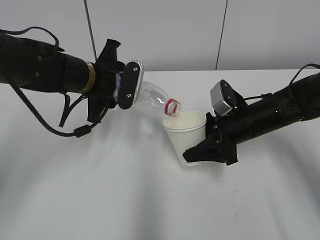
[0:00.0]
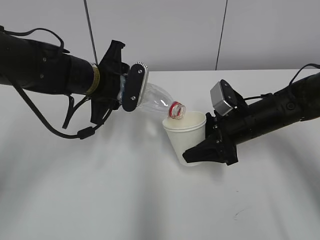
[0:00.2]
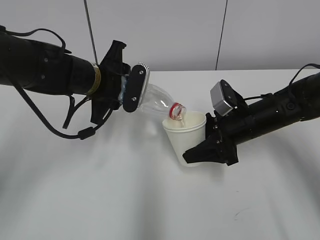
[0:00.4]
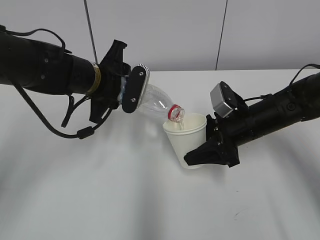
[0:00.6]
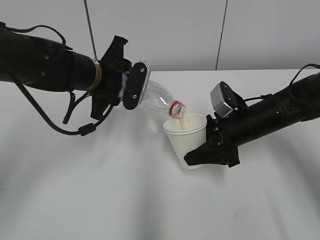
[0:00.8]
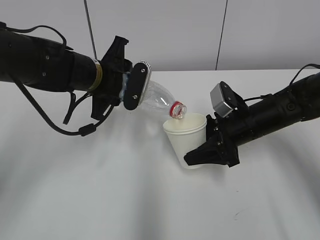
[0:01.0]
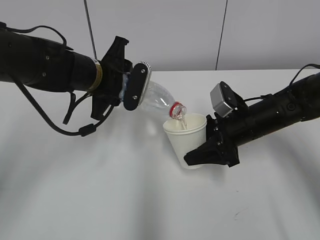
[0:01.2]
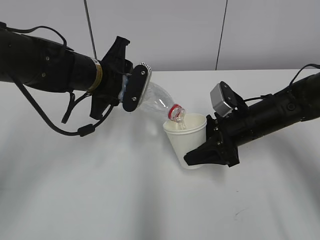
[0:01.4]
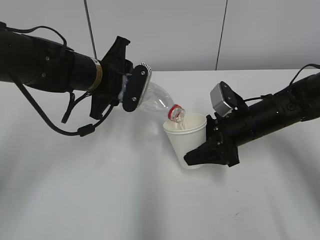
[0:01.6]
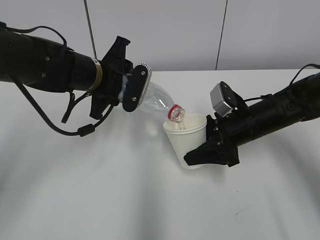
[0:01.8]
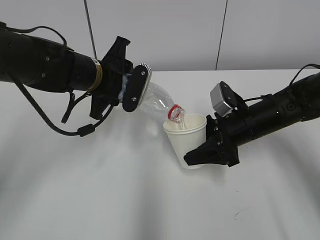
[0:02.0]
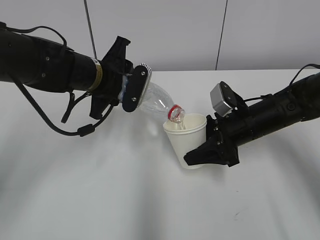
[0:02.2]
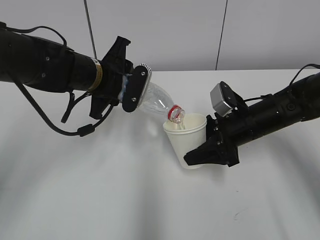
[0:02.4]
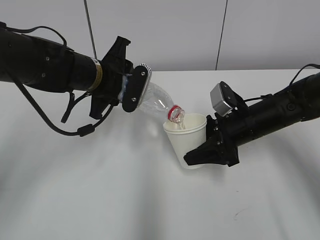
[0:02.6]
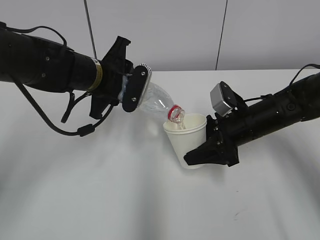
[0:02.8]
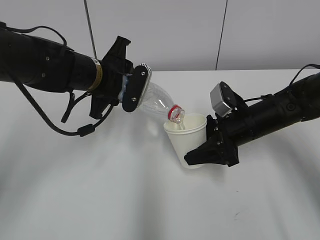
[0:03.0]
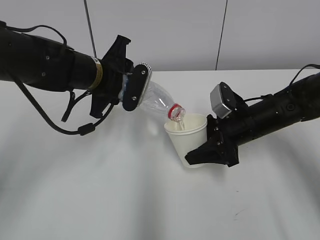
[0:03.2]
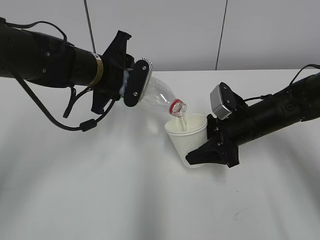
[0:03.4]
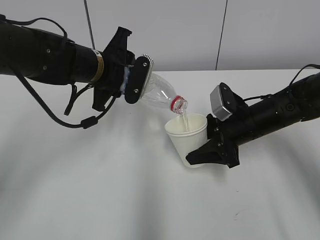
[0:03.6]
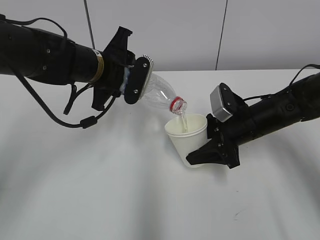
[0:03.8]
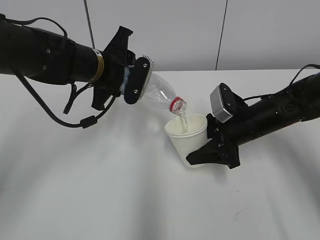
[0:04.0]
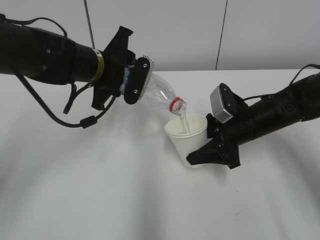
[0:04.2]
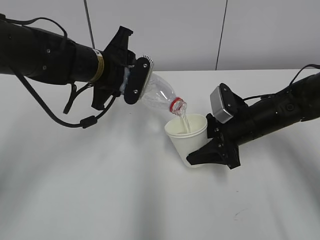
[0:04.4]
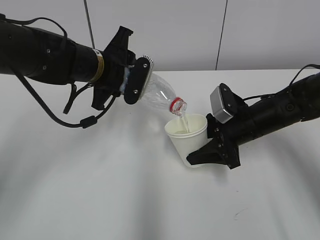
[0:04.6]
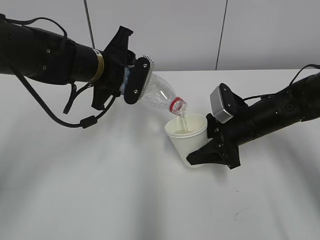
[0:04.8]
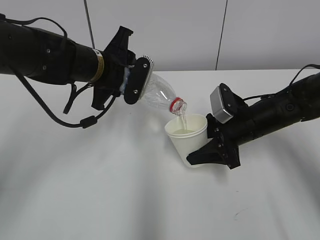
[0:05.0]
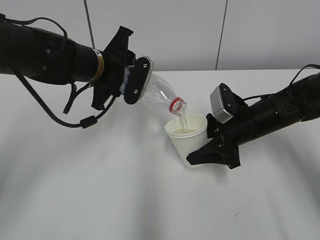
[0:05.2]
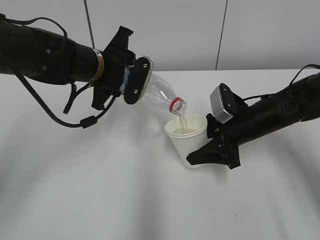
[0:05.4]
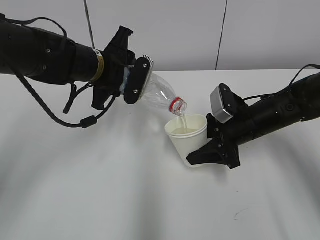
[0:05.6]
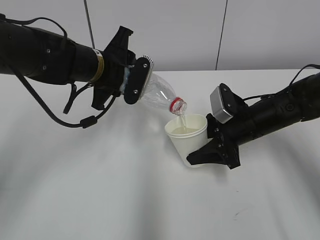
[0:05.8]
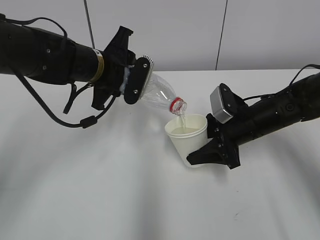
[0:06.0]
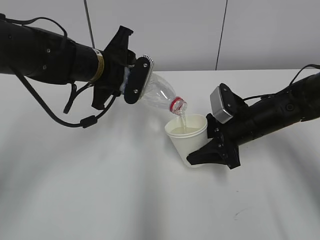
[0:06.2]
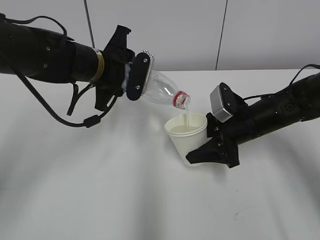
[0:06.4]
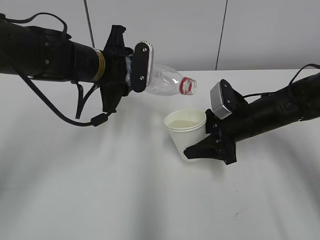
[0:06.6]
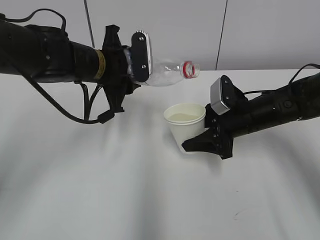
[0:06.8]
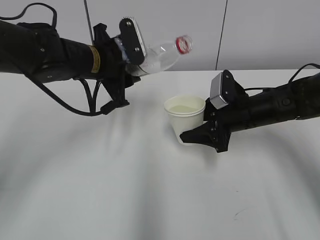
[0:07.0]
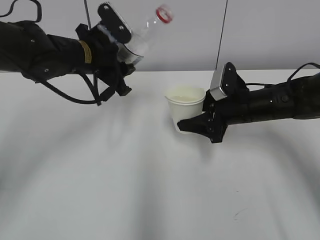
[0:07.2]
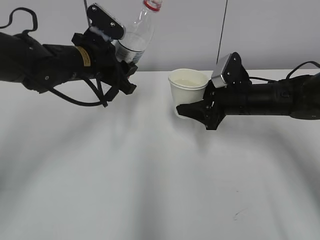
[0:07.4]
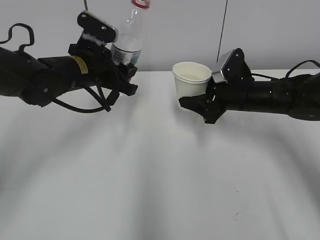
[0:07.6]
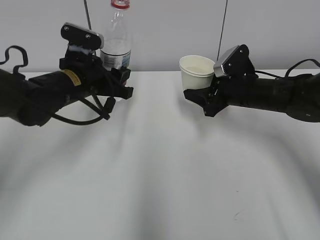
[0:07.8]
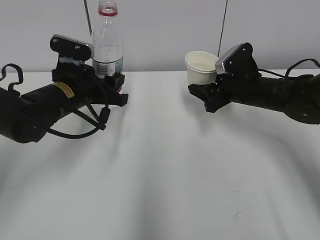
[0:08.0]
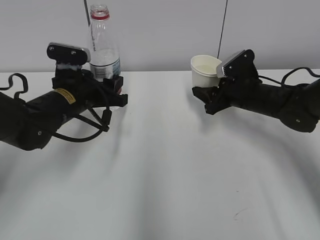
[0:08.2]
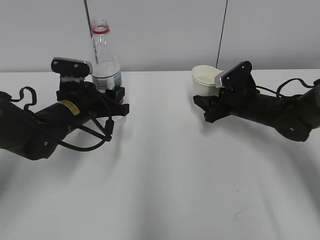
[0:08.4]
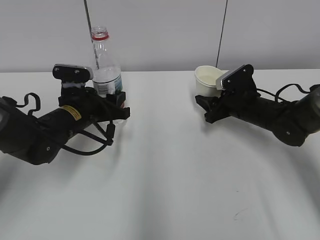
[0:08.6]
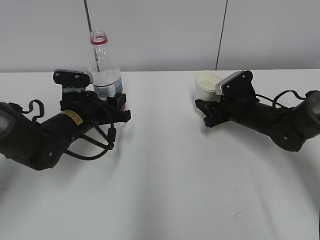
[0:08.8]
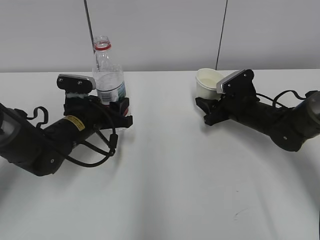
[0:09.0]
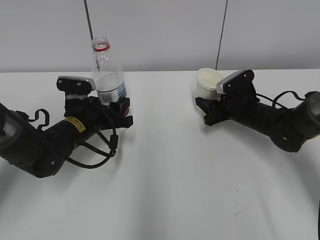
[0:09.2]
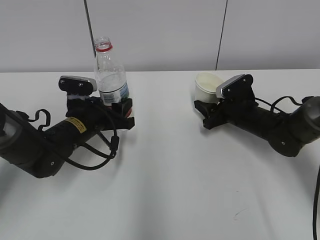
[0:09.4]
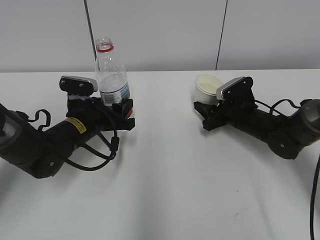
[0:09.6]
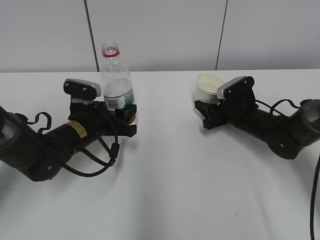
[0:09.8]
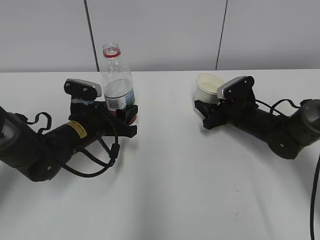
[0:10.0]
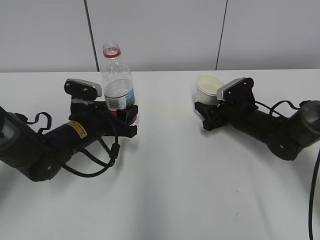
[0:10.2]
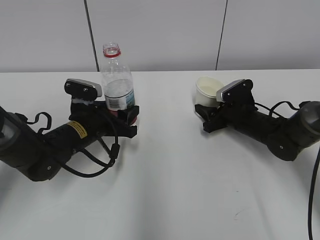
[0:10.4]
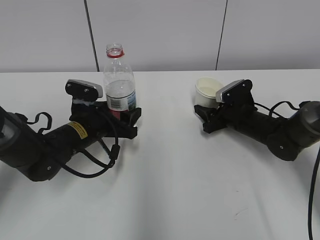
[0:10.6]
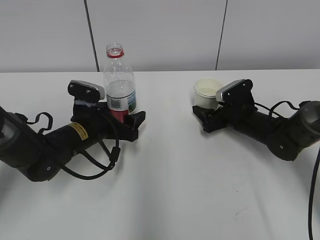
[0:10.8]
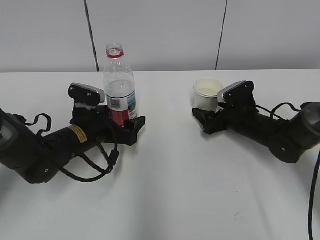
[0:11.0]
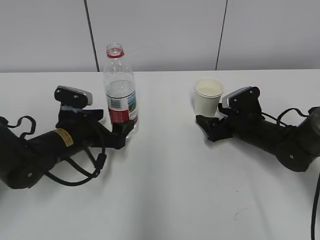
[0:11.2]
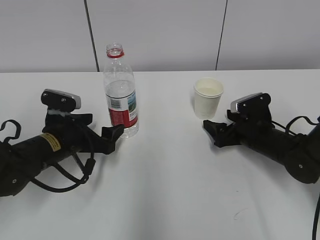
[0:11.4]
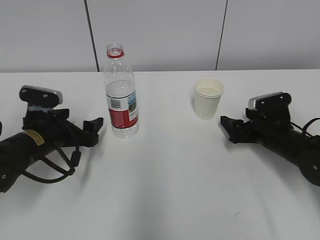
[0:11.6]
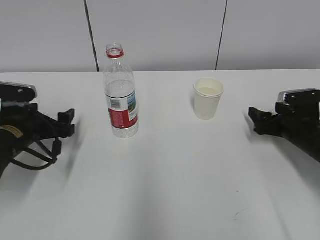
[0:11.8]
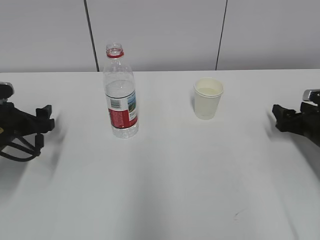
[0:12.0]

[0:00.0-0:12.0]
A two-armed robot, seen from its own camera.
Step, 0:00.0 to 0:03.4: Fill water with the right hand.
Step, 0:00.0 to 0:03.4: Pour water with the left hand.
Step, 0:05.0 to 0:06.6: Place the water bottle with the left hand.
0:00.0 to 0:01.6: The grippers stay close to where they were, moving slightly.
0:01.6 to 0:03.0: The two grippers keep their place.
0:03.0 to 0:04.4: There are only small adjustments of the grippers.
0:04.4 to 0:06.0: Neither gripper changes place.
0:07.6 to 0:09.0: The right gripper heads downward, covering about 5 cm, while the left gripper moves downward, approximately 10 cm.
0:09.0 to 0:10.4: The grippers stay close to where they were, moving slightly.
0:10.4 to 0:12.0: The left gripper travels to the left by about 15 cm, and opens. The right gripper travels to the right and backward by about 15 cm, and opens its fingers.

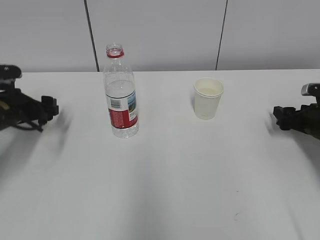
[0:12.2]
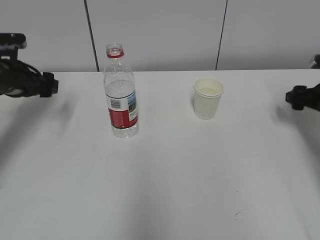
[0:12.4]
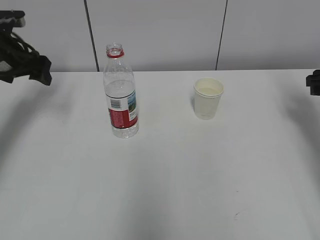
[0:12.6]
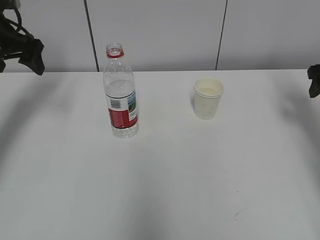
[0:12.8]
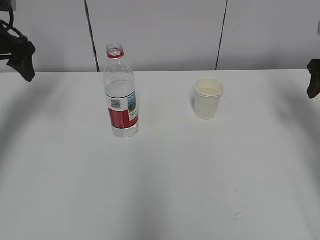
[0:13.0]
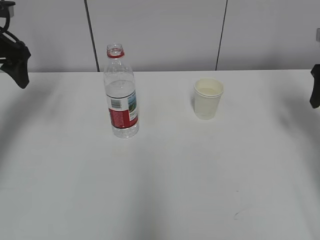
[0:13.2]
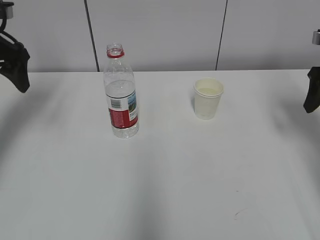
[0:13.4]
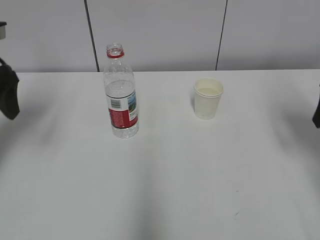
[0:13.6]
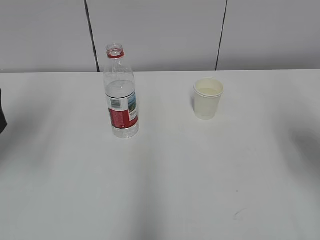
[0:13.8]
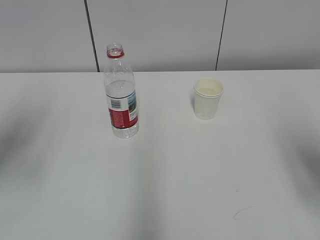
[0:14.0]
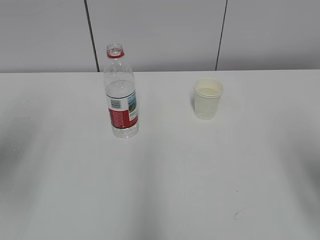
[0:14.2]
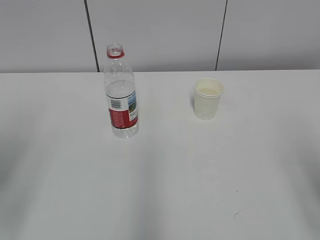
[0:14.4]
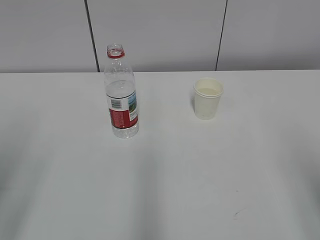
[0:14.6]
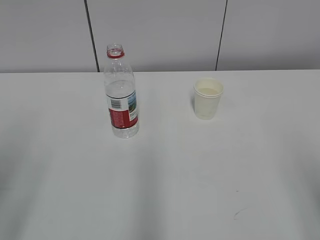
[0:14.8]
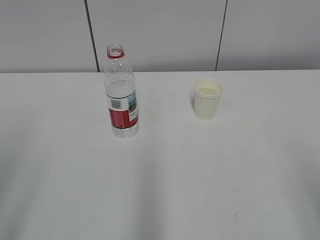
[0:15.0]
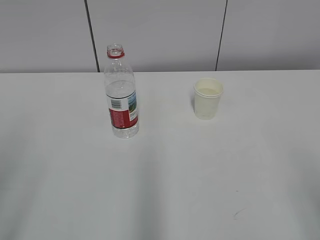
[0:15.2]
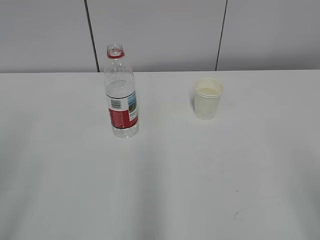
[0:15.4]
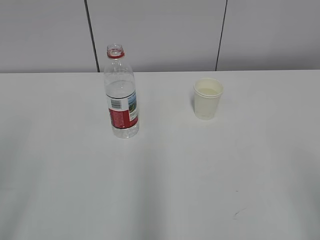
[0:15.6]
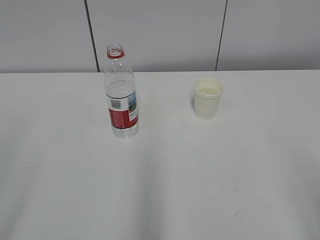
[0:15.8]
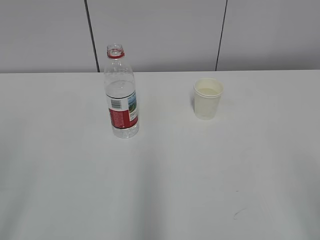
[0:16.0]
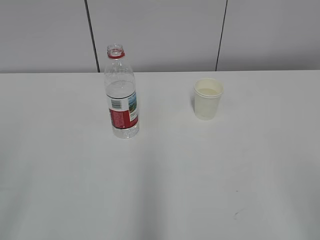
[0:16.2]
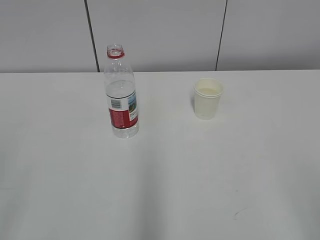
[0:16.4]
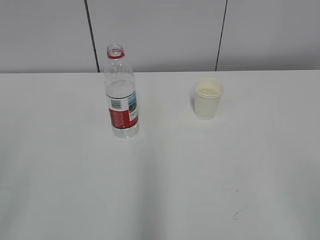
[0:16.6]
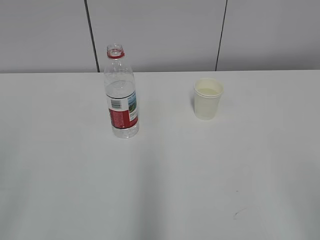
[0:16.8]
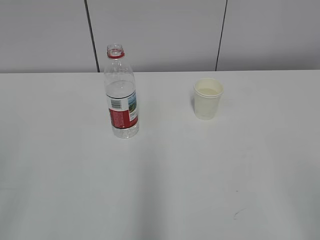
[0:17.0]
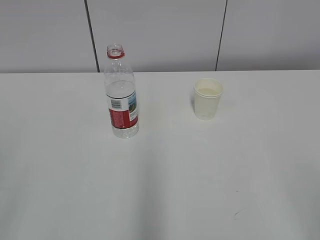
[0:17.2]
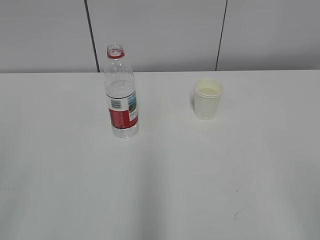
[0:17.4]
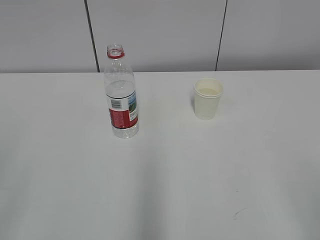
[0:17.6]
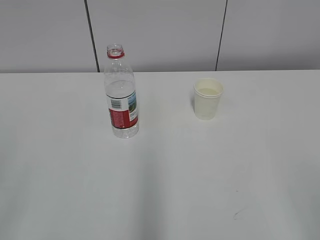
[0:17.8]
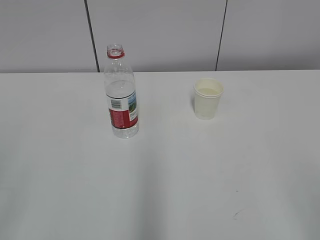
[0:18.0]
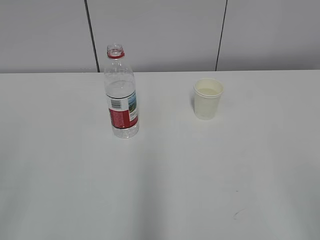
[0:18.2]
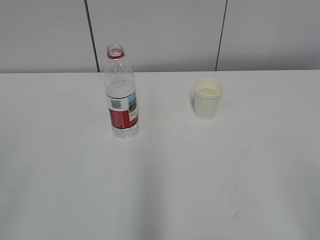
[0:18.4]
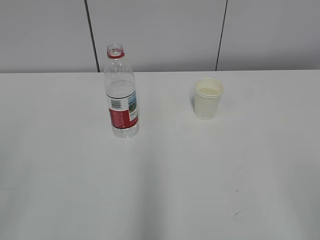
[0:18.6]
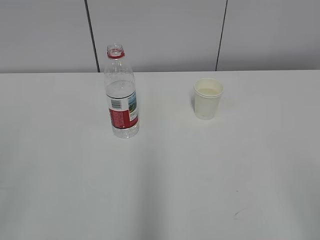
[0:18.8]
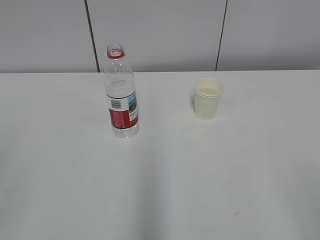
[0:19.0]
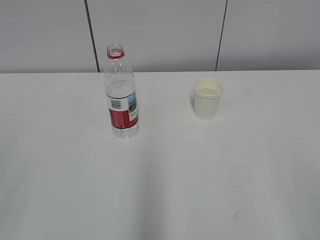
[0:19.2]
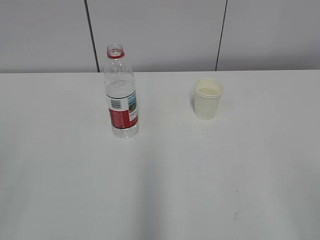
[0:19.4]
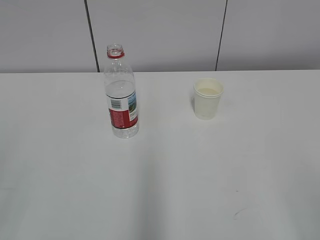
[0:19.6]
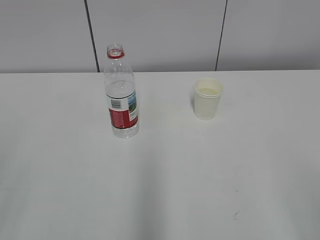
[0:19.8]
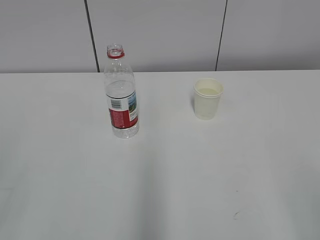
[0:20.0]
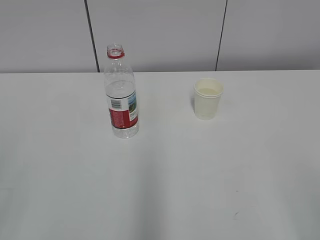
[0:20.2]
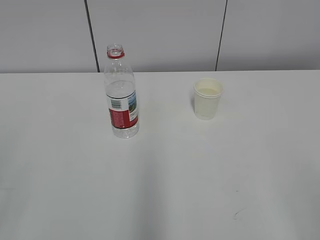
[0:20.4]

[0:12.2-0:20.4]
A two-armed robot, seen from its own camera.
0:12.2 to 0:13.8: The two grippers go roughly 20 cm upward and backward.
0:13.8 to 0:15.4: Both grippers travel together backward, roughly 20 cm.
0:17.2 to 0:18.8: Both grippers stay put.

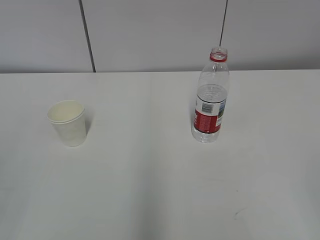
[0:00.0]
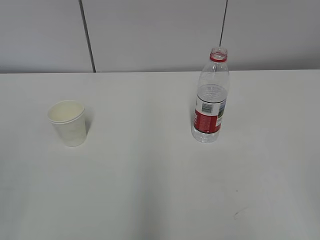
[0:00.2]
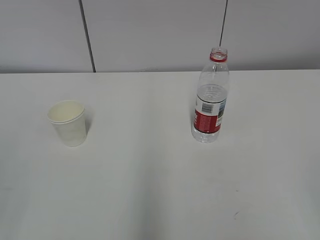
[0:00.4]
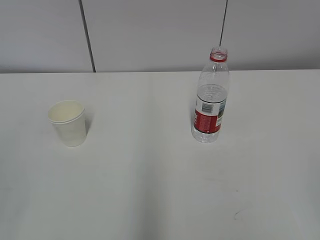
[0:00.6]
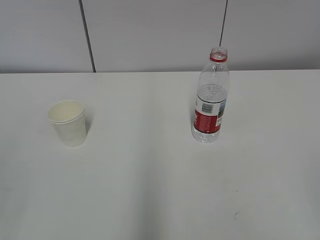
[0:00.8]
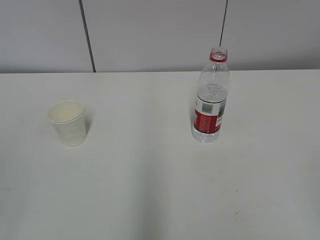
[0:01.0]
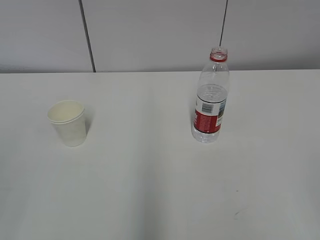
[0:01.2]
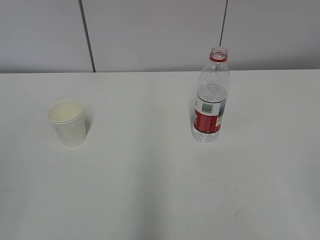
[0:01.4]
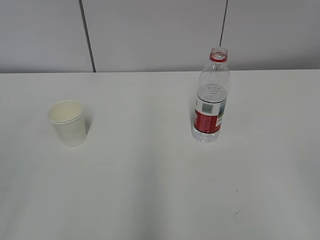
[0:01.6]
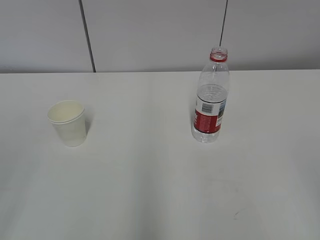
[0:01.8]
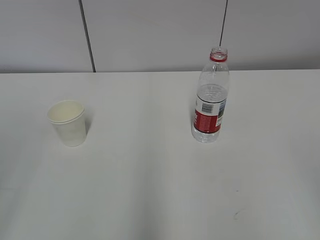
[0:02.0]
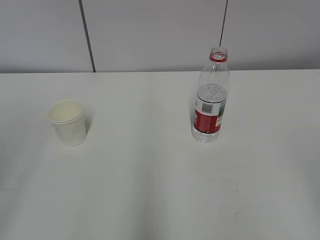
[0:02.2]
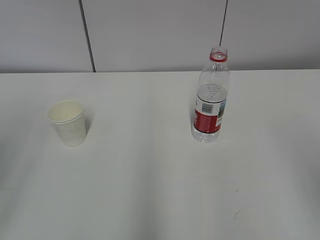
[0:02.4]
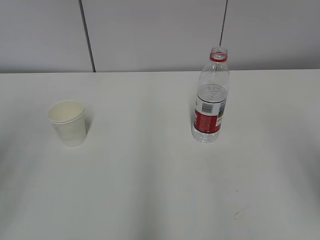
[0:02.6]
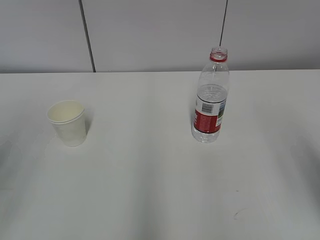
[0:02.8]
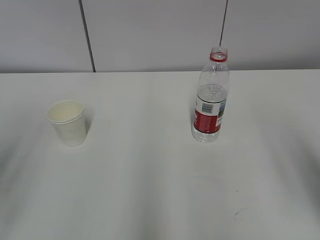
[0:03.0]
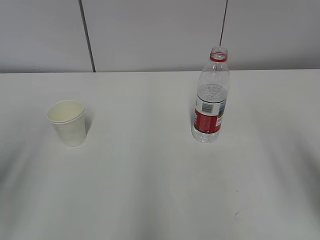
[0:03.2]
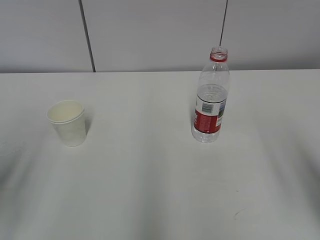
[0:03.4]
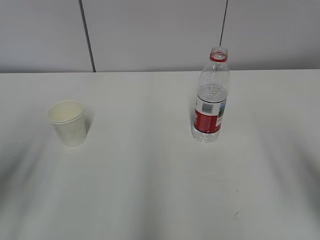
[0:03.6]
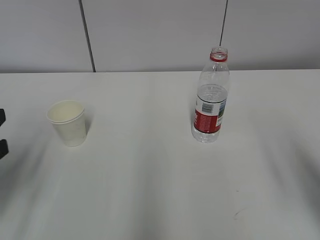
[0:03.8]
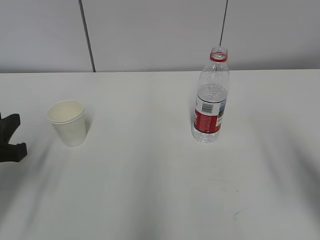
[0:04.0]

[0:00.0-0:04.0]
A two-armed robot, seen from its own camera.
0:02.6 to 0:04.0: The left gripper moves downward and forward, some 20 cm.
